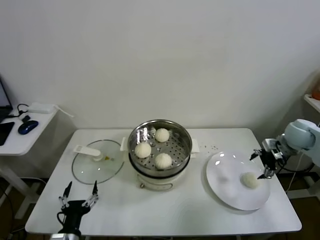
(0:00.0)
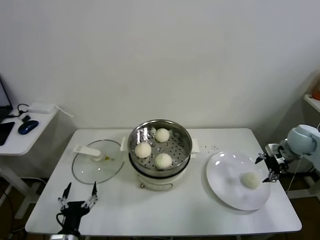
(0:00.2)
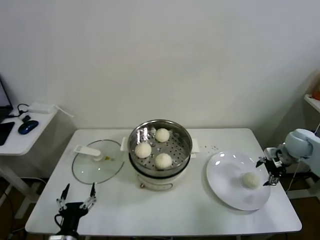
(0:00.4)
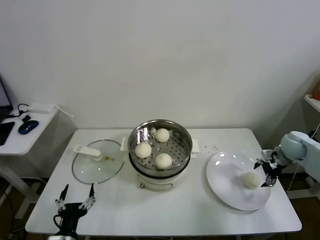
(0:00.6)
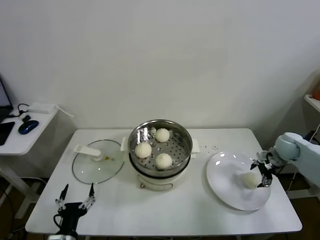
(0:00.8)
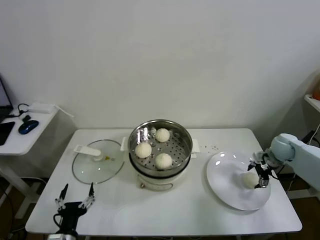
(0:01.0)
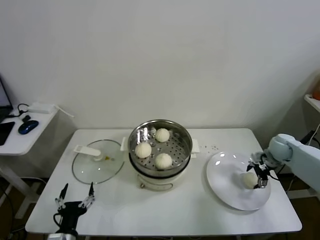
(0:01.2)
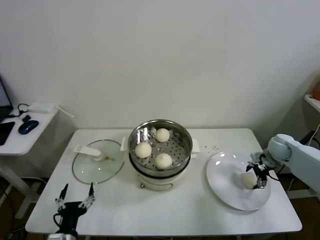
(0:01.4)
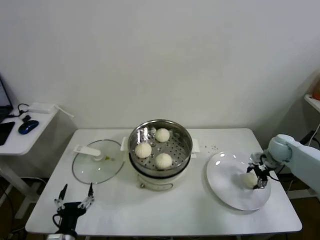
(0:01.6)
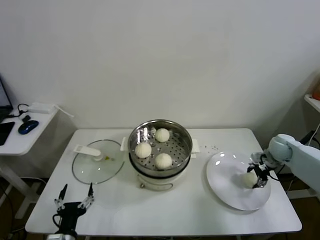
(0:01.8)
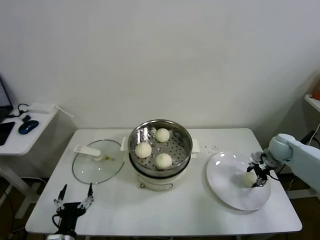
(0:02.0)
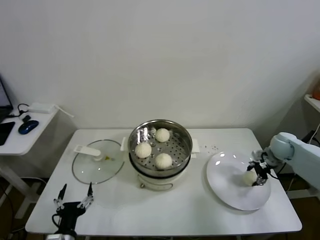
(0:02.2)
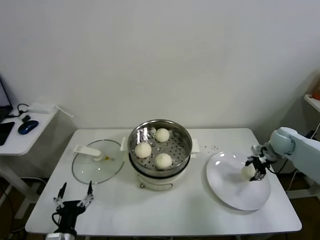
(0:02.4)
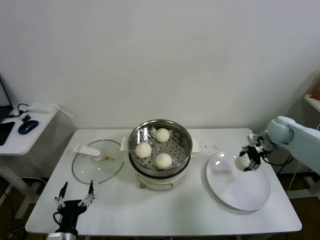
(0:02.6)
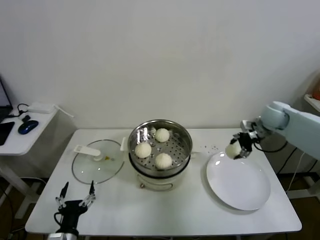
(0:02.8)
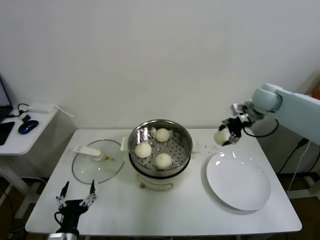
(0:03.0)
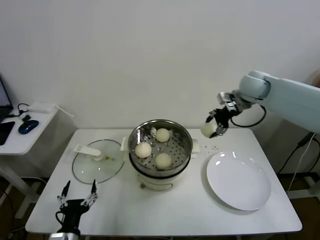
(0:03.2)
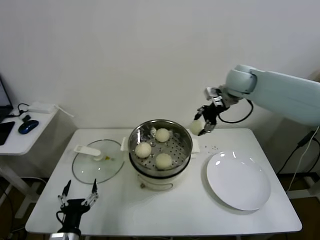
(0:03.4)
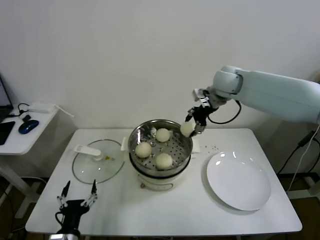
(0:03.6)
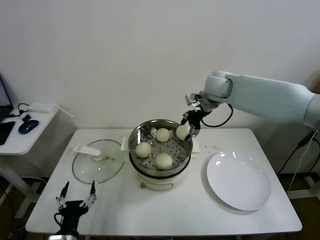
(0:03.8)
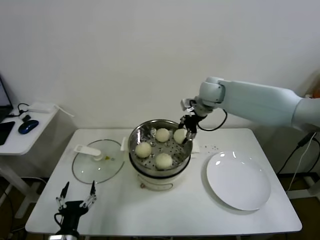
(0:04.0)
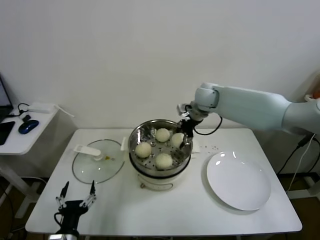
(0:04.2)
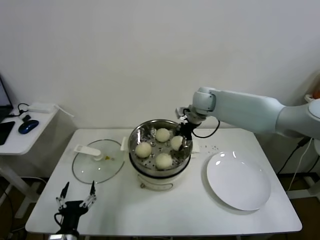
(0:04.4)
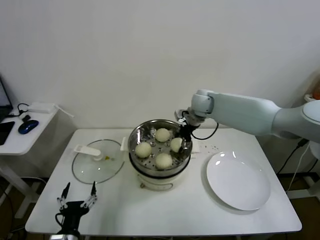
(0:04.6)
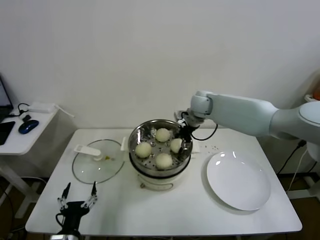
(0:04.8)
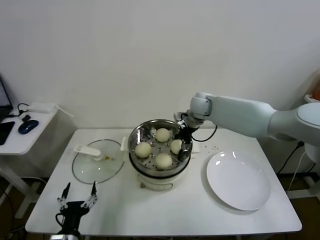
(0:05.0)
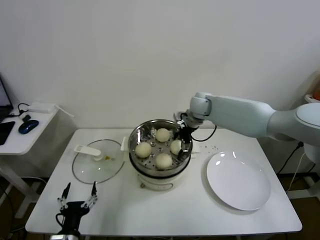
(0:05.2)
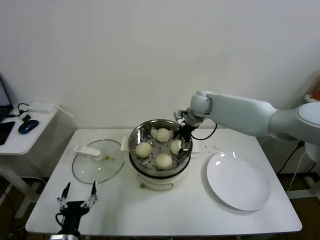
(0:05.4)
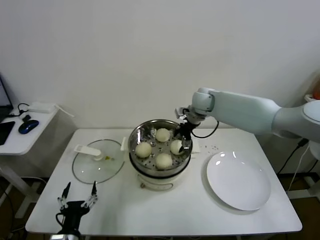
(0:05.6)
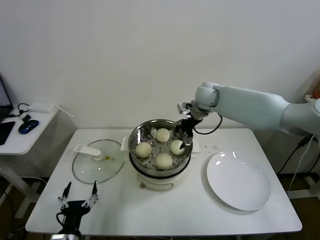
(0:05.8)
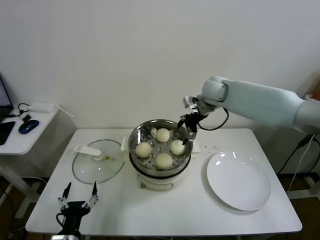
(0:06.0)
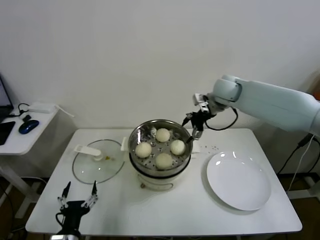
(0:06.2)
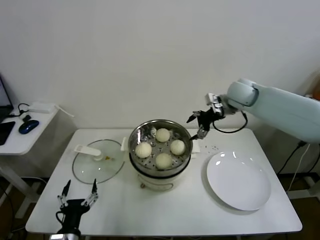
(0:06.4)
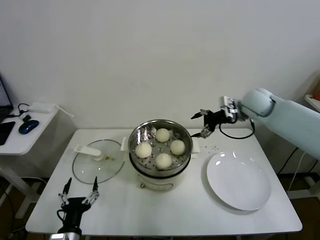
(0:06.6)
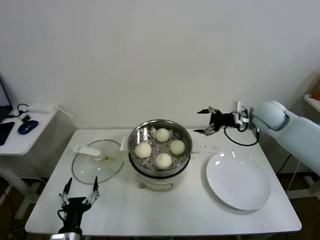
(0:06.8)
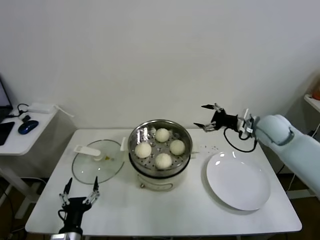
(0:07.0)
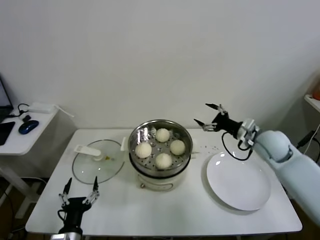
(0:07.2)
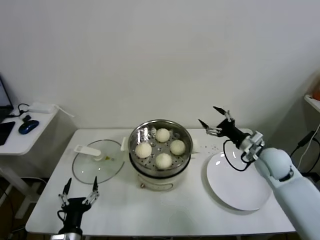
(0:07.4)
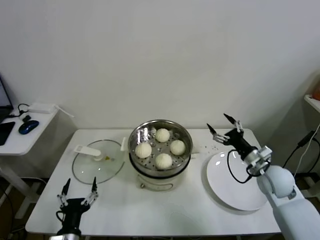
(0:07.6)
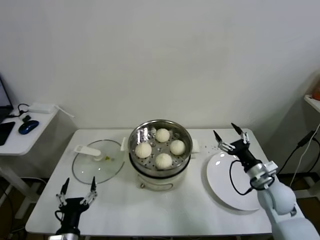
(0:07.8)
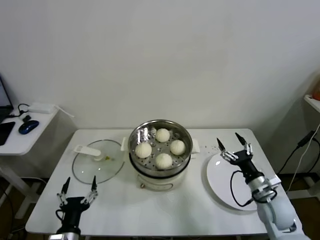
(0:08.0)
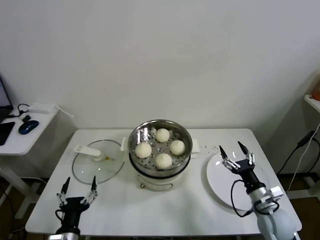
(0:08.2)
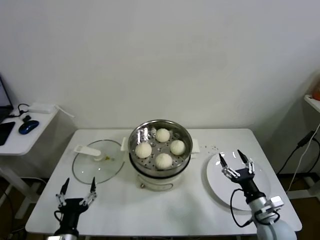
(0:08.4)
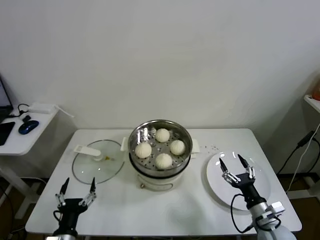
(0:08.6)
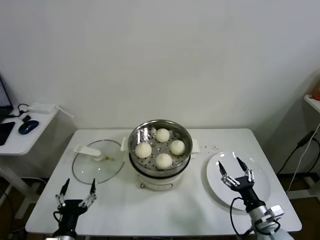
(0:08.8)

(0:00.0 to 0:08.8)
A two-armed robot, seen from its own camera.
Task of the whole recording: take steamed baozi put them in steamer.
Step, 0:02.2 - 0:05.4: Place the baozi on the steamer with right gripper.
0:00.0 - 0:01.4: The right gripper shifts approximately 10 cm downward.
0:01.4 - 0:03.0: The right gripper moves upward and to the left, some 20 cm, and closes.
0:03.0 - 0:04.4: The right gripper travels to the left by roughly 20 cm.
0:04.4 - 0:05.8: The right gripper opens.
0:05.8 - 0:07.4: The right gripper is displaced to the right, backward and downward by some 30 cm.
0:07.4 - 0:08.8: The right gripper goes roughly 25 cm backward and downward.
